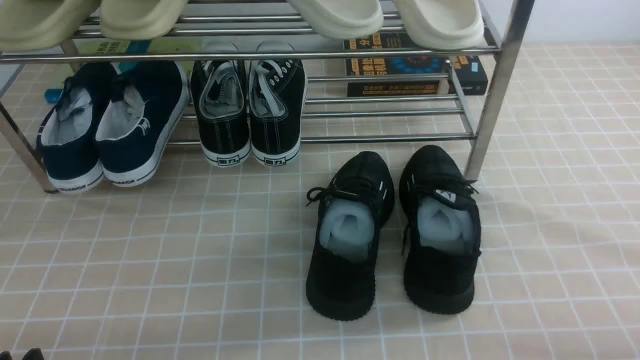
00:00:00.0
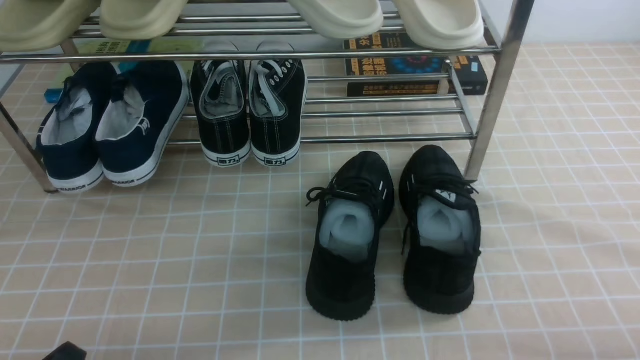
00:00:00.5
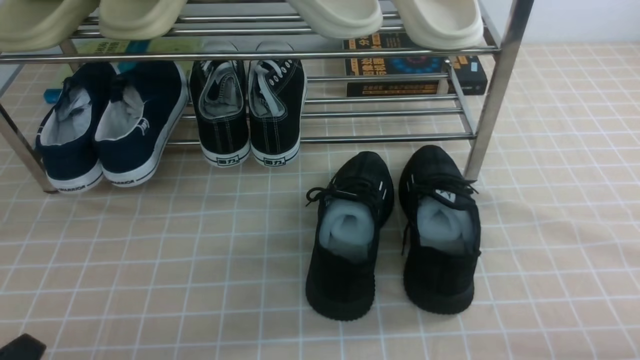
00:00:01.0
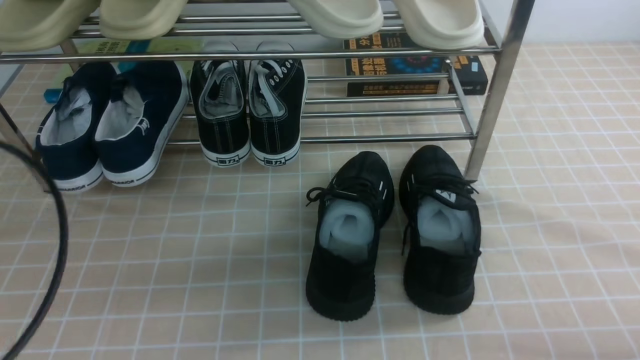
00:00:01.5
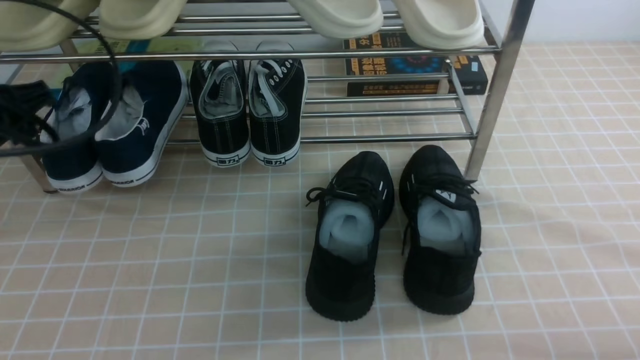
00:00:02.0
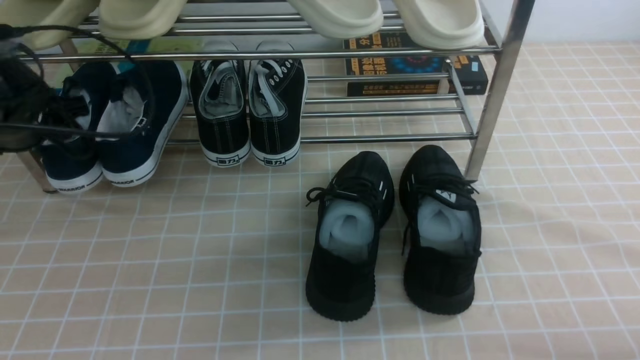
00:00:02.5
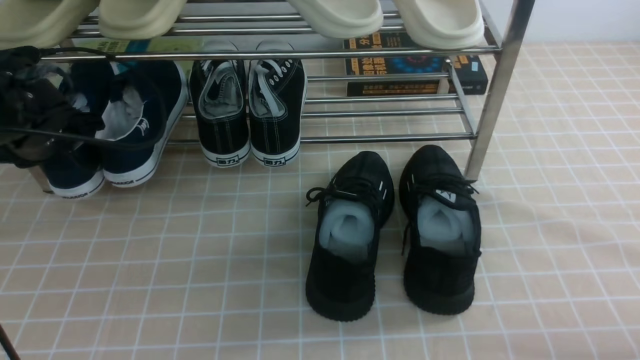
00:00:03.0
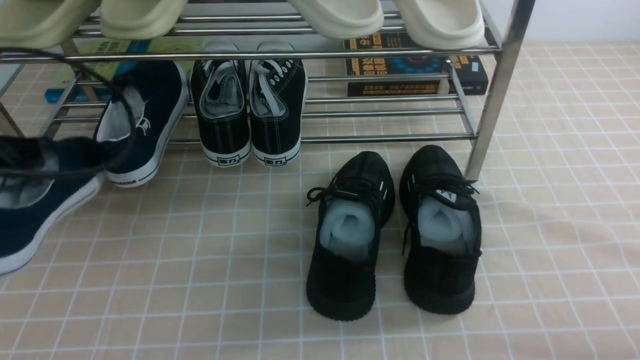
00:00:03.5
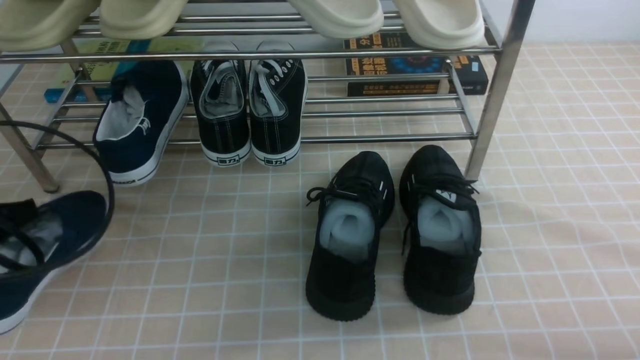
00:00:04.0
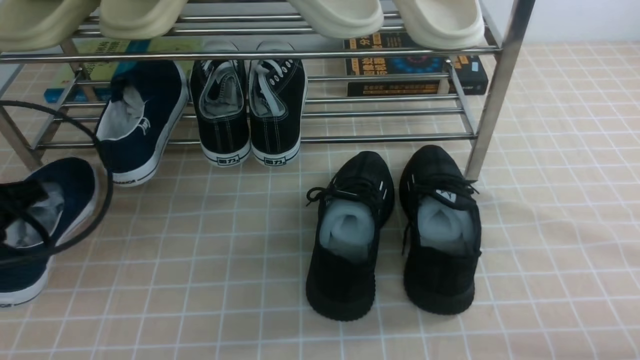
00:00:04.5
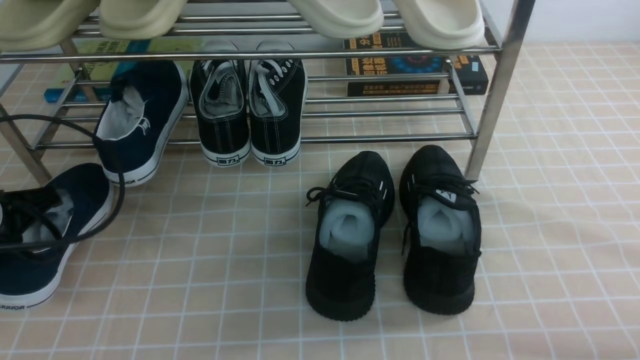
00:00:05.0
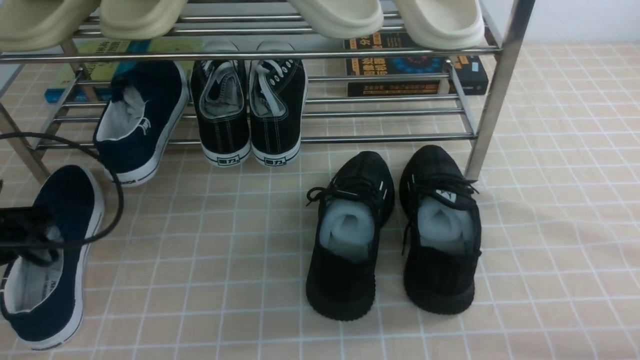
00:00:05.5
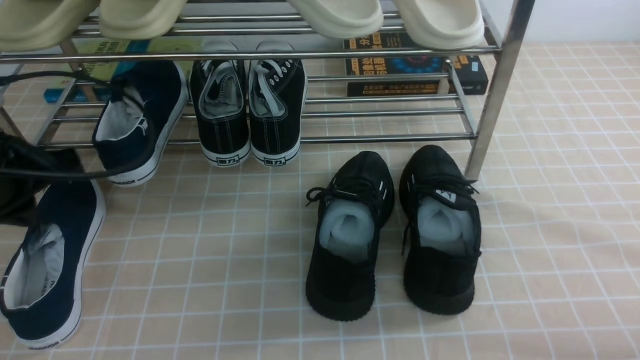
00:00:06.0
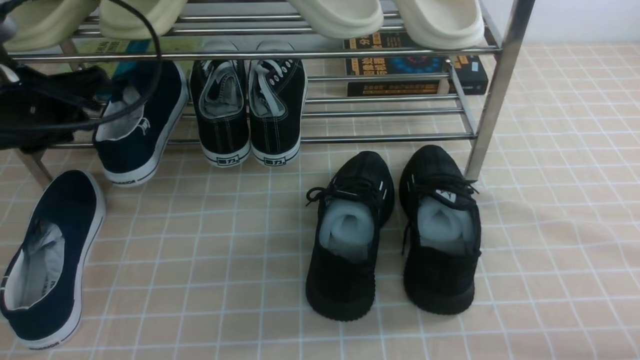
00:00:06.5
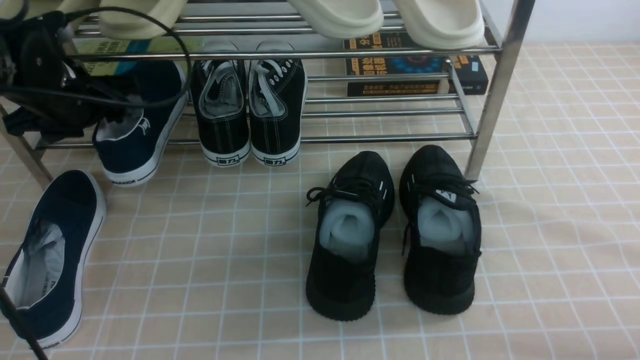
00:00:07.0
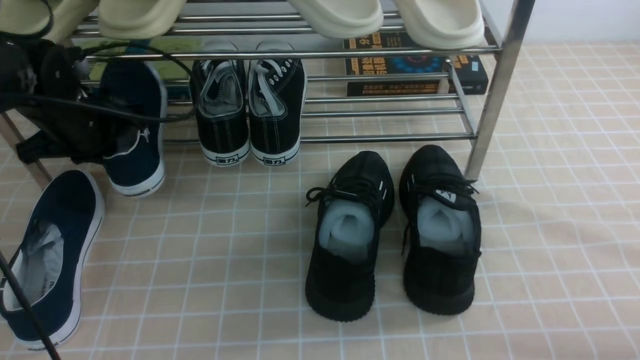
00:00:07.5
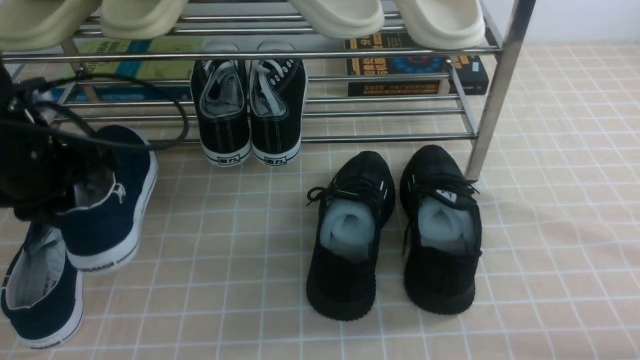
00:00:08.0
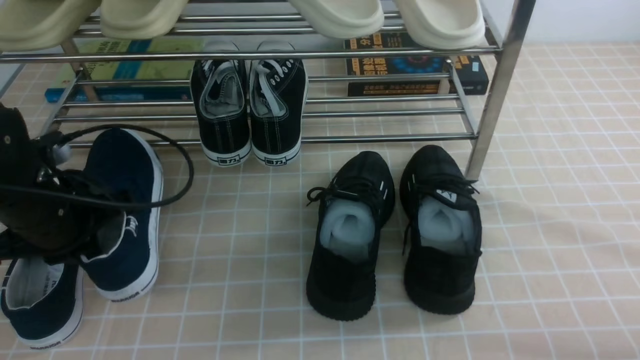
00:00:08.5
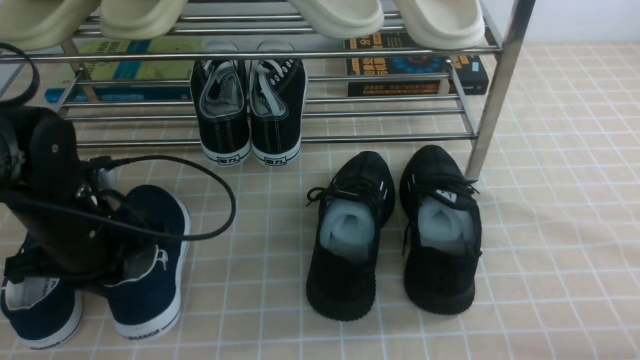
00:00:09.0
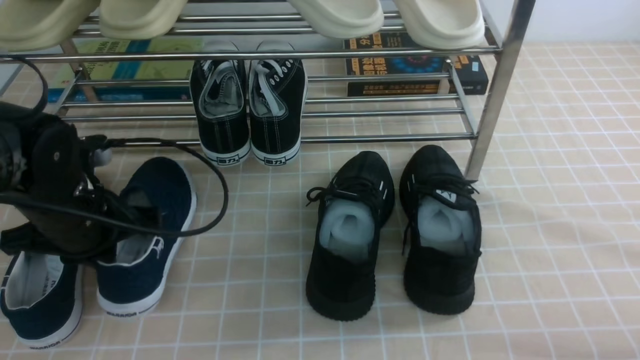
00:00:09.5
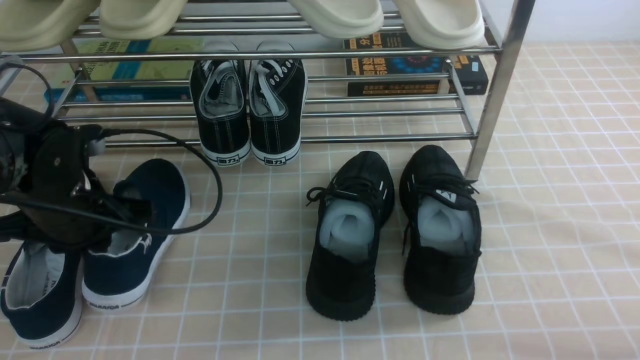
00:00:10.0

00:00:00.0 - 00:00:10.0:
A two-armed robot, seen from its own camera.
Step, 00:00:00.0 - 00:00:03.0: use the left arm to clamp a shoe on the left side of the shoe rack.
Step, 00:00:03.5 - 00:00:05.5: Use your left arm to remove the clamped shoe from the shoe rack and put it down.
Step, 00:00:06.0 - 00:00:07.0: use the left arm to clamp a shoe on the left side of the shoe rack.
00:00:00.0 - 00:00:02.0: The left gripper goes roughly 30 cm forward and upward, and opens.
00:00:02.0 - 00:00:04.0: The left gripper heads backward and downward, covering about 10 cm, and closes its fingers.
00:00:04.0 - 00:00:06.0: The left gripper goes some 5 cm forward.
00:00:06.0 - 00:00:08.0: The left gripper travels forward and back again, approximately 15 cm each way, and opens, then closes once more.
00:00:08.0 - 00:00:10.0: The left gripper moves roughly 5 cm.

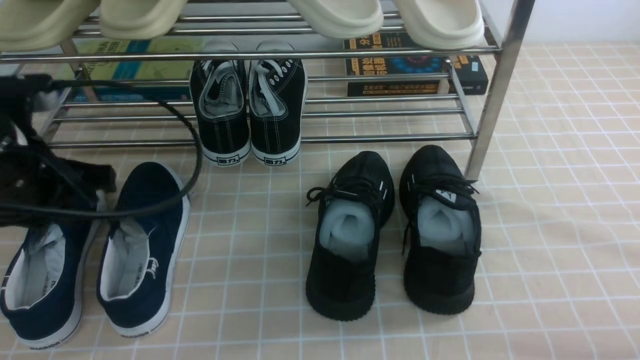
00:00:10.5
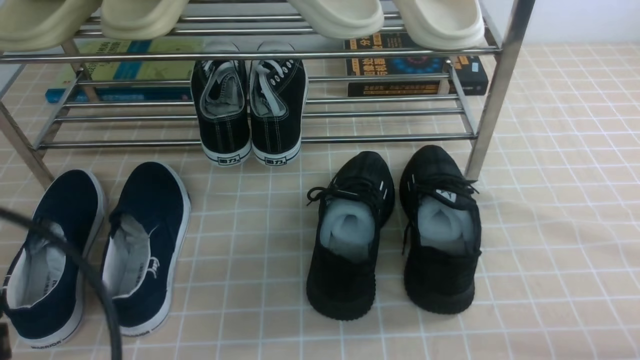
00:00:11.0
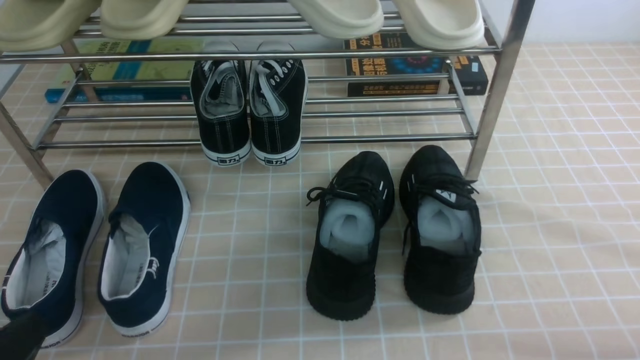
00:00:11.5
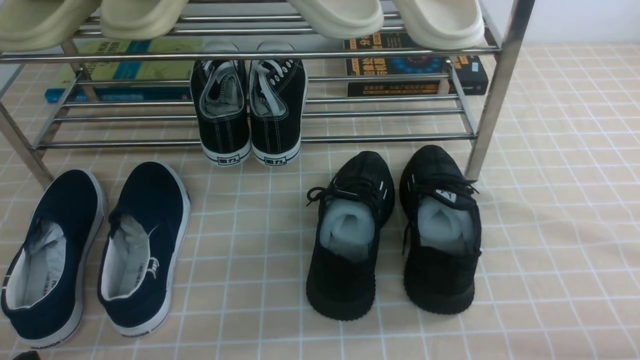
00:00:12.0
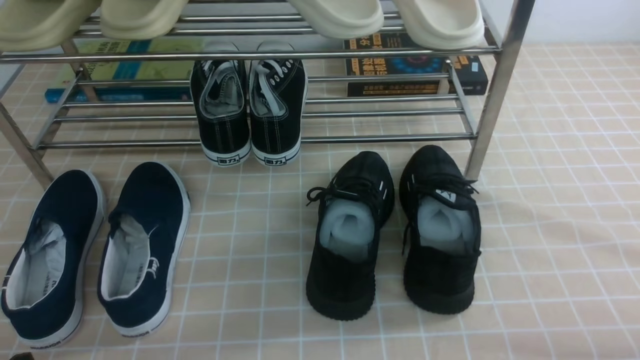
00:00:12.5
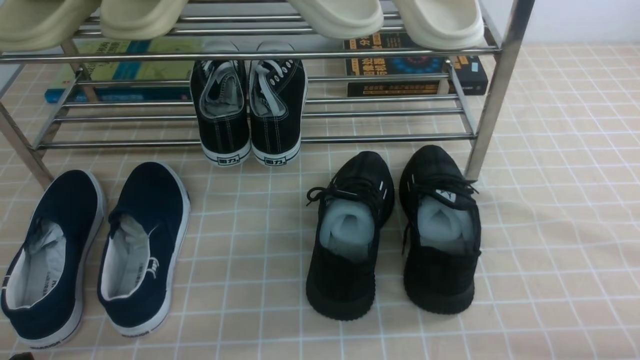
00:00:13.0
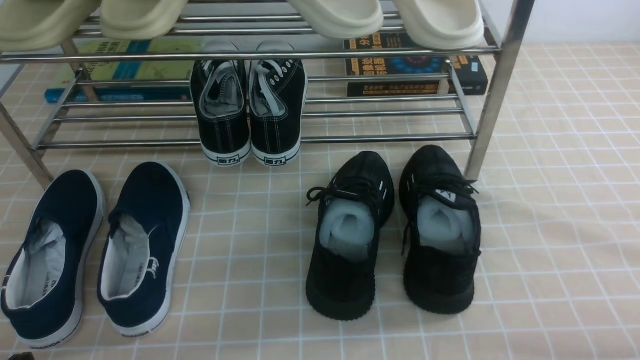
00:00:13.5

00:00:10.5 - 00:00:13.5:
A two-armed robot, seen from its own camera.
00:00:10.5 - 00:00:12.0: The left gripper is displaced backward and downward by about 25 cm.
00:00:12.0 - 00:00:13.5: The two grippers keep their place.
